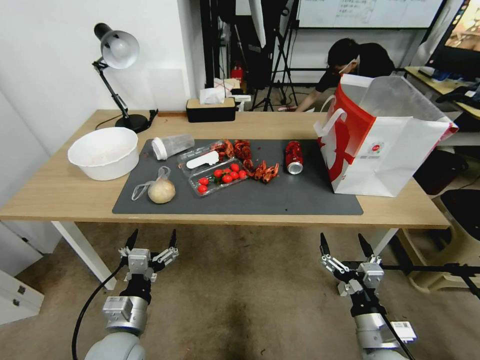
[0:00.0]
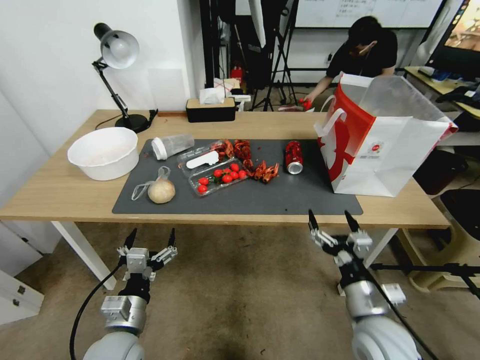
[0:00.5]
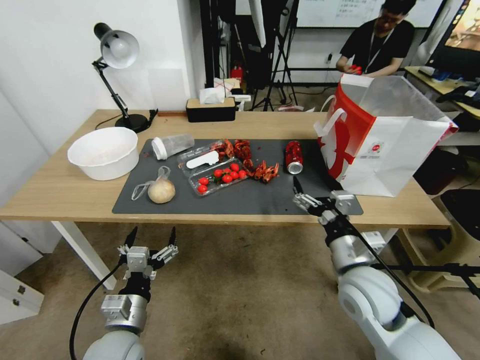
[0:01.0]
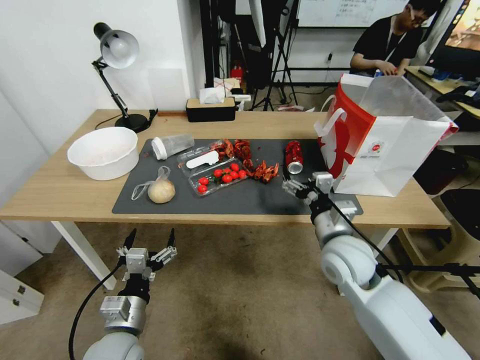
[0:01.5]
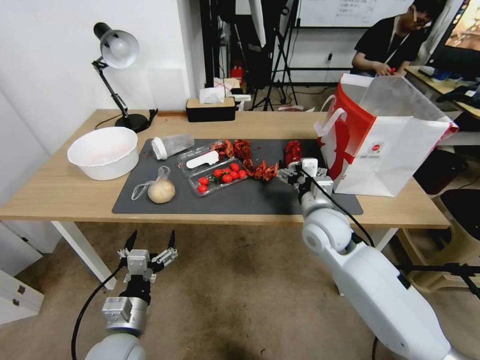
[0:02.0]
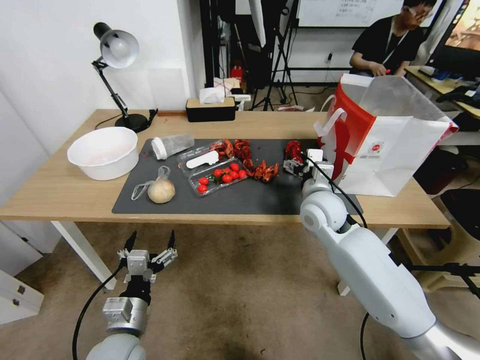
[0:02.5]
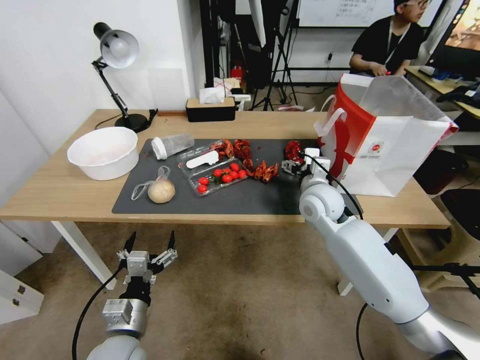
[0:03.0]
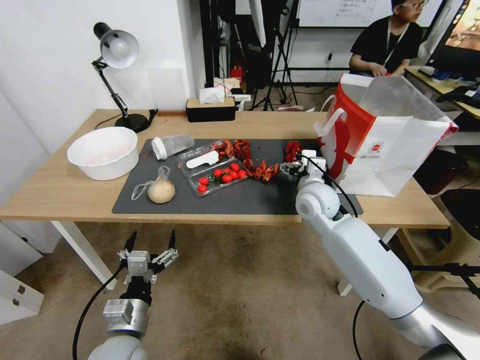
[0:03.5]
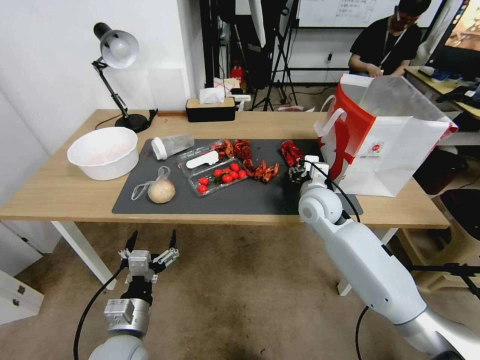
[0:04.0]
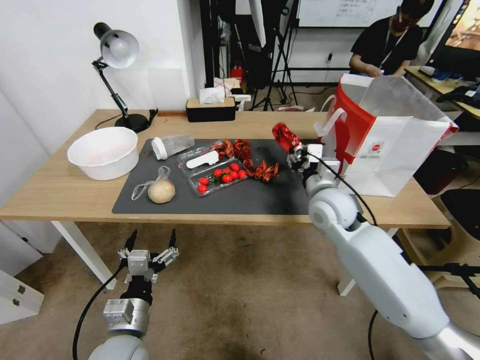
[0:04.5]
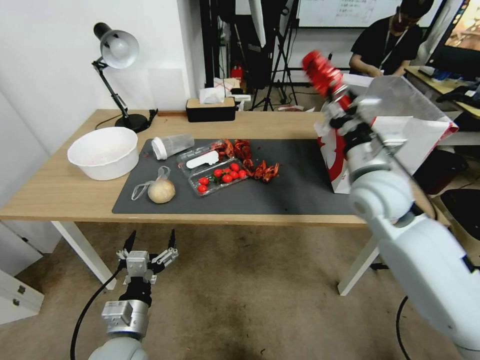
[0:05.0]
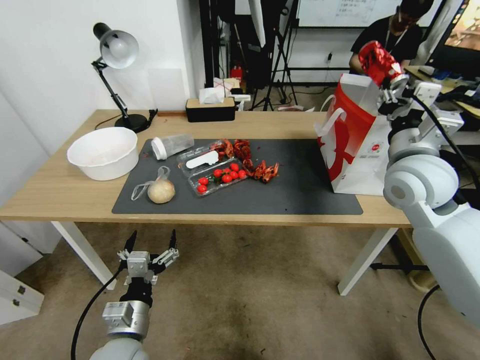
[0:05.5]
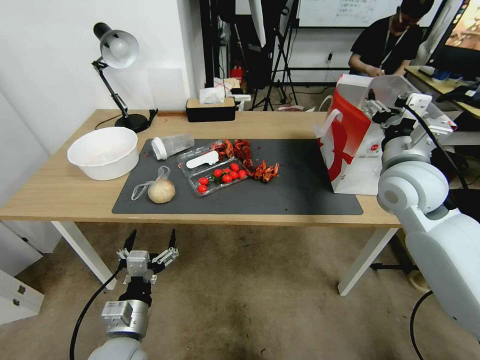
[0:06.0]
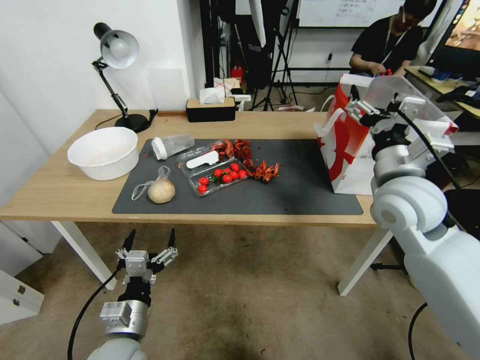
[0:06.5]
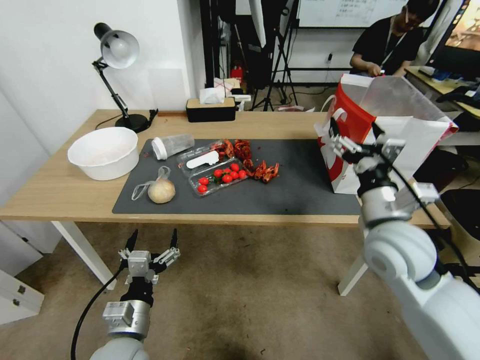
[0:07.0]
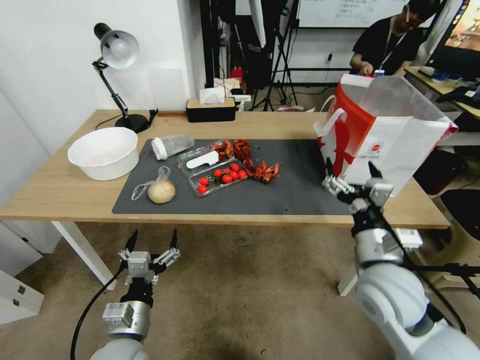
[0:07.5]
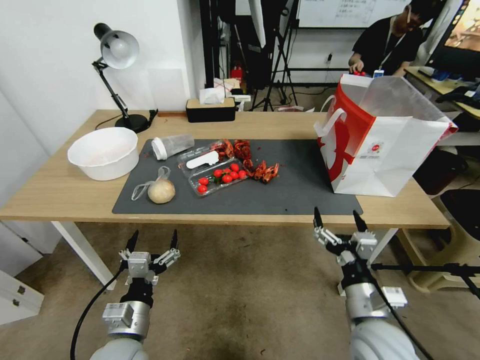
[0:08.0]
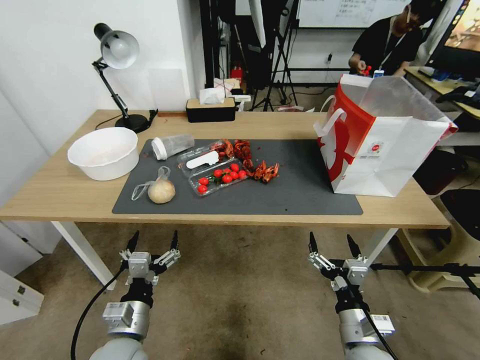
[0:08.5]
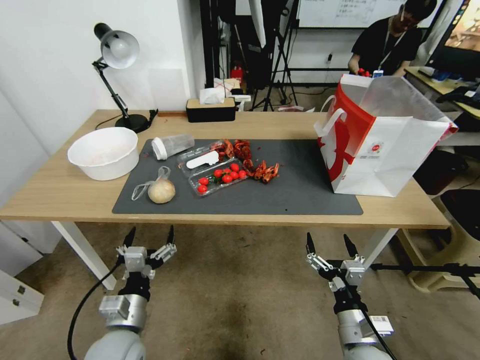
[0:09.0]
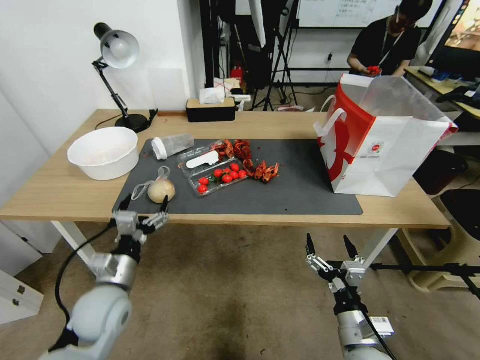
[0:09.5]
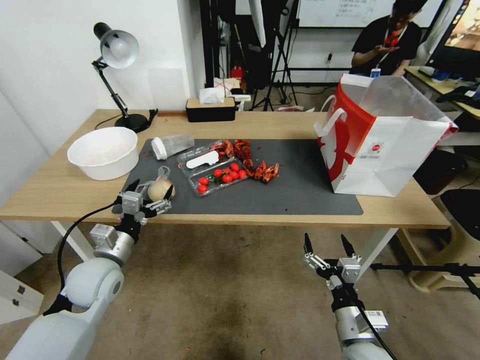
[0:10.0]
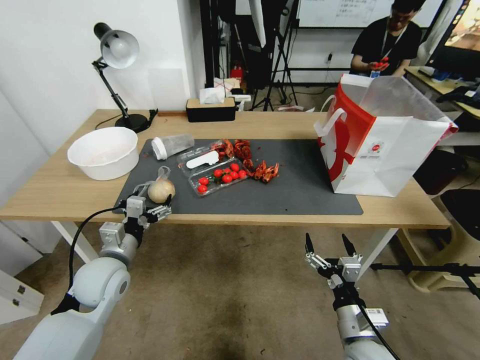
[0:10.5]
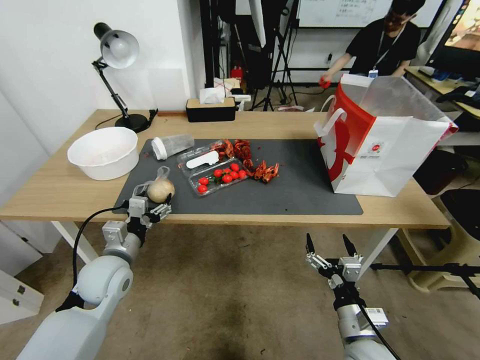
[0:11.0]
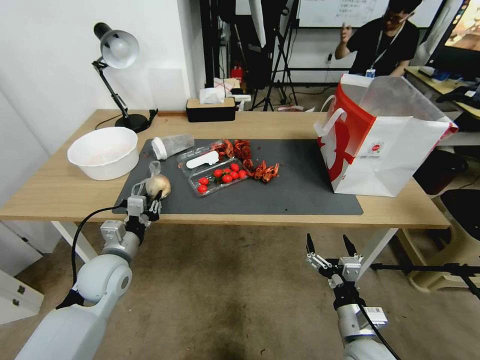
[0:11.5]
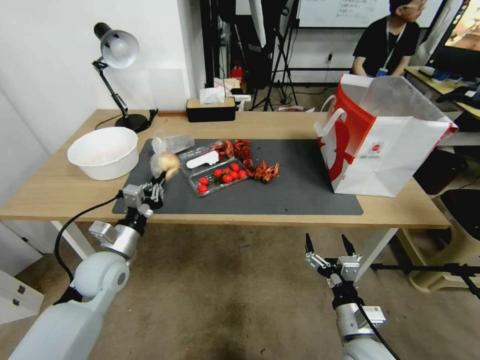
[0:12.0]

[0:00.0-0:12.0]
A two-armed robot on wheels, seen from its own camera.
0.0 to 2.0 s: The right gripper goes some 25 cm forward and upward.
2.0 to 4.0 s: The right gripper travels forward by about 5 cm, and closes its fingers.
4.0 to 6.0 s: The right gripper heads upward, to the right and backward, covering approximately 20 cm, and opens its fingers.
6.0 to 8.0 s: The right gripper heads backward and downward, covering some 30 cm.
8.0 to 10.0 s: The right gripper travels downward by roughly 5 cm. Meanwhile the left gripper heads forward and to the left, covering roughly 15 cm.
10.0 to 12.0 s: The left gripper closes.

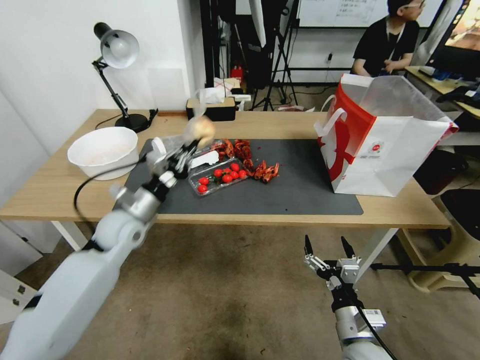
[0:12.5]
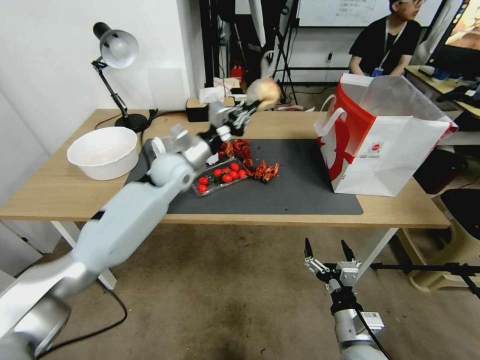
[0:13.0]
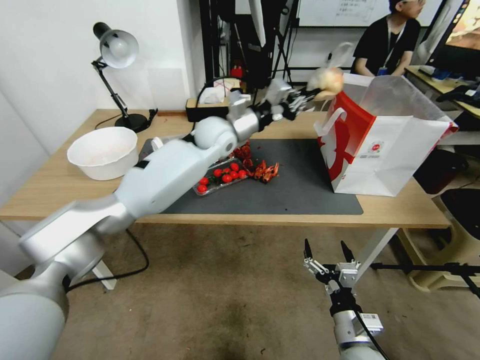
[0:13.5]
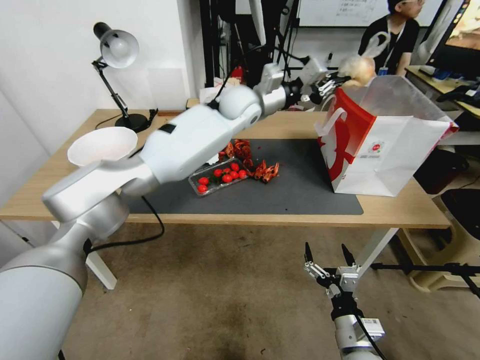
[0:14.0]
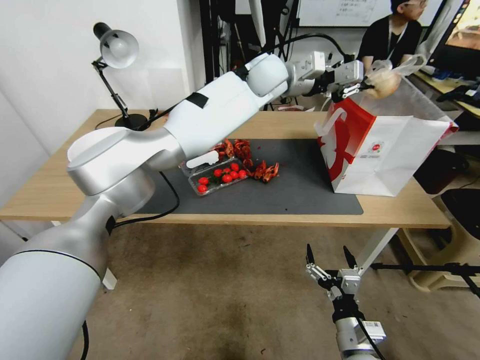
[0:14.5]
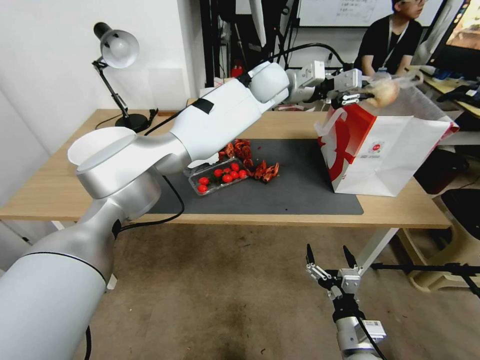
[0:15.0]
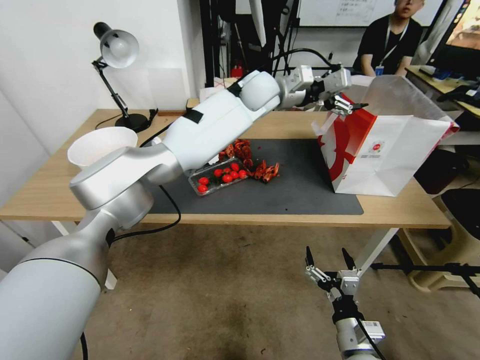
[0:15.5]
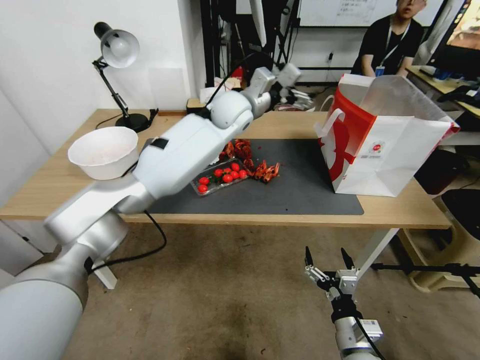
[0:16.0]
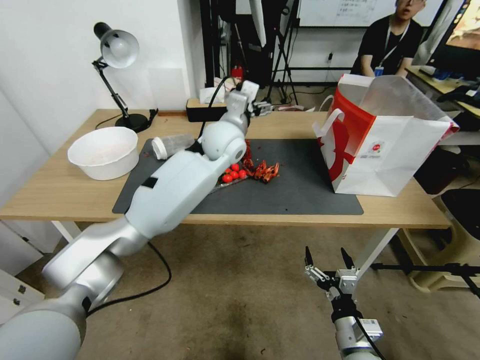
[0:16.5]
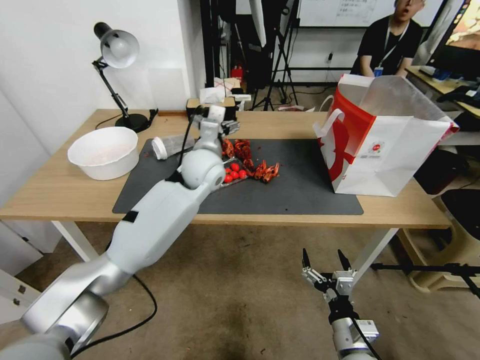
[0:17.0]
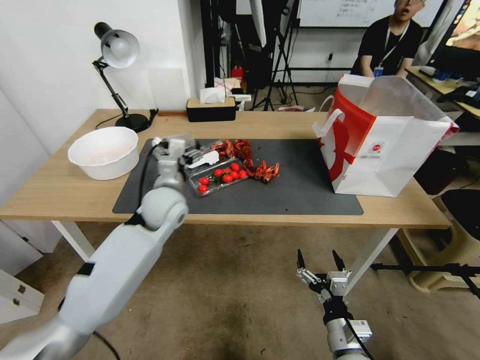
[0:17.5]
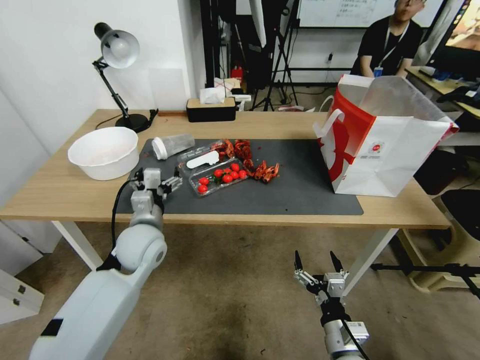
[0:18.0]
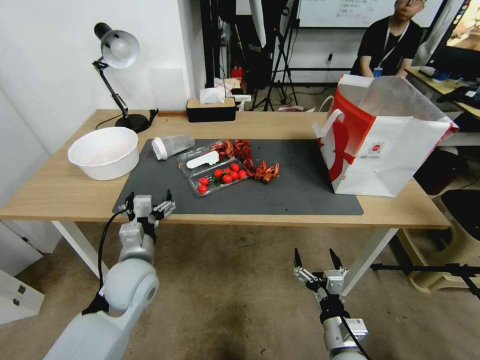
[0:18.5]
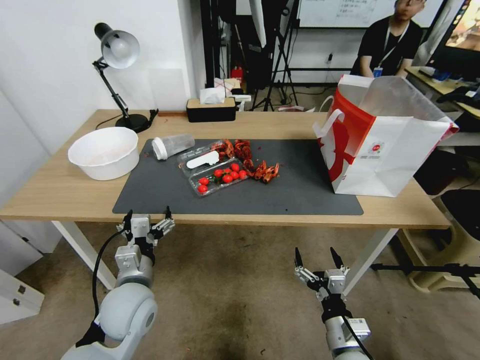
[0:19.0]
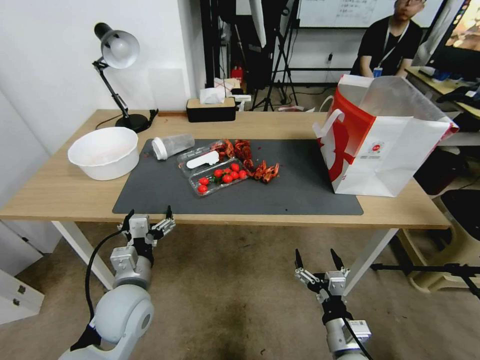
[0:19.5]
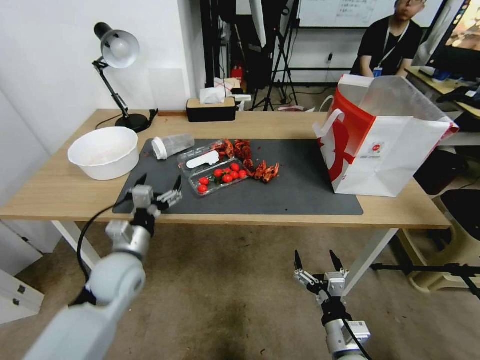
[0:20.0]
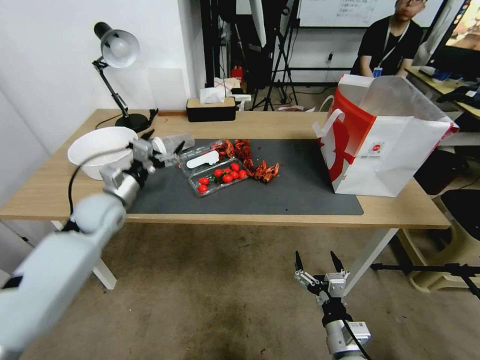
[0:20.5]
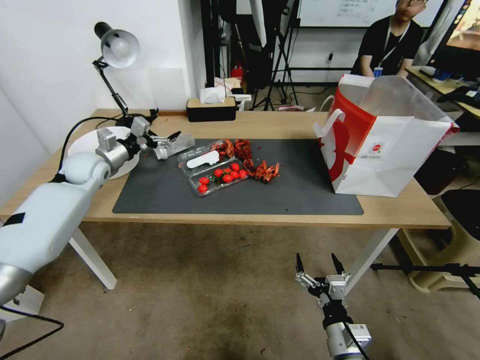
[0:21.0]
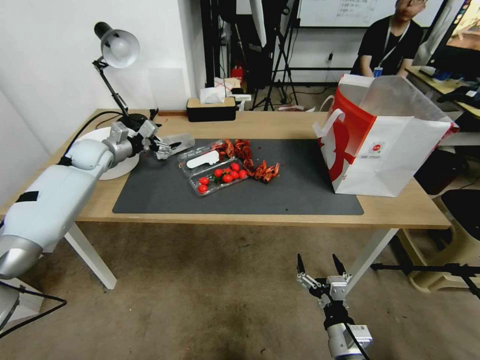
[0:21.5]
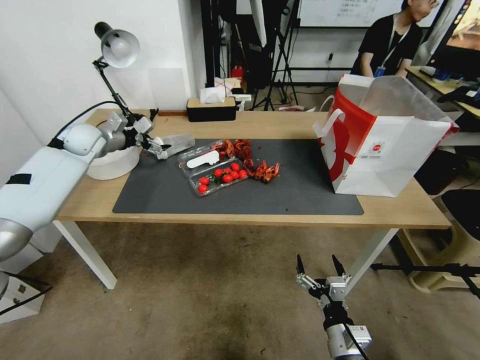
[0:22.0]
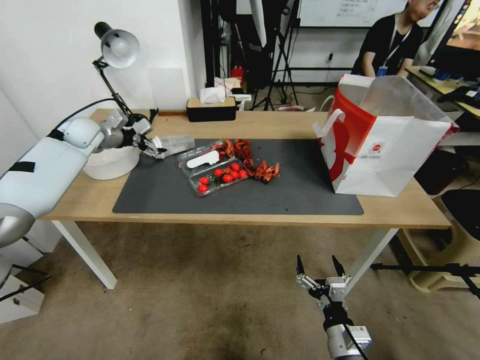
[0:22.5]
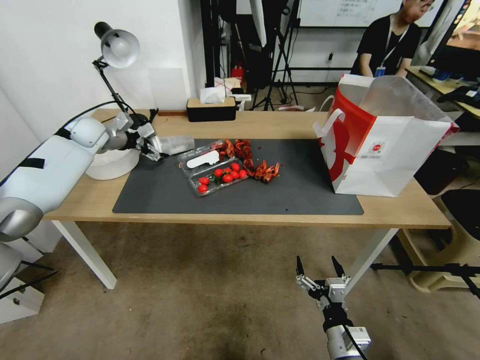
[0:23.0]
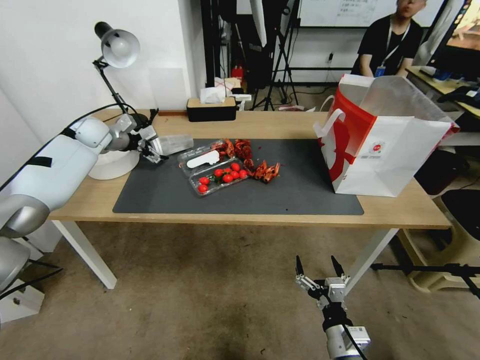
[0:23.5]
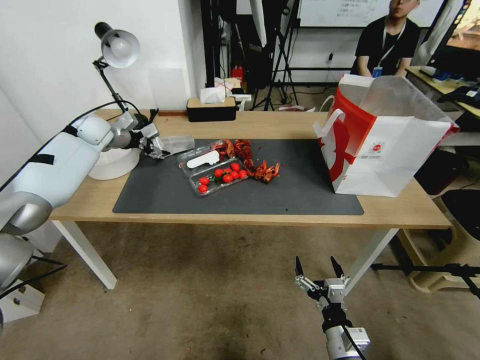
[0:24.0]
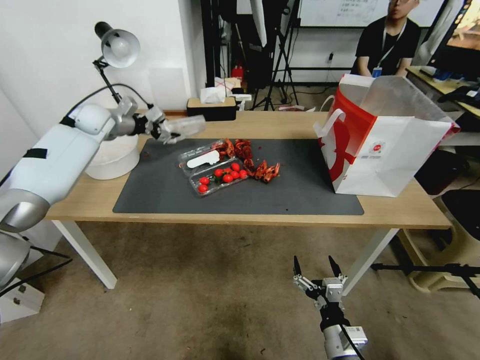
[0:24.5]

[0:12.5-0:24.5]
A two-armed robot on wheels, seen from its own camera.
12.5 to 14.5 s: The left gripper moves to the right, upward and forward, approximately 50 cm.
14.5 to 16.5 s: The left gripper heads downward, to the left and backward, covering about 15 cm, and opens.
16.5 to 18.5 s: The left gripper travels backward, to the left and downward by about 35 cm.
18.5 to 20.5 s: The left gripper moves forward and to the left, roughly 20 cm.
20.5 to 22.5 s: The left gripper is displaced forward, upward and to the left by roughly 20 cm.
22.5 to 24.5 s: The left gripper closes.

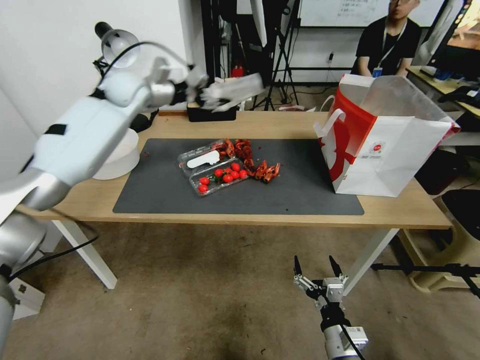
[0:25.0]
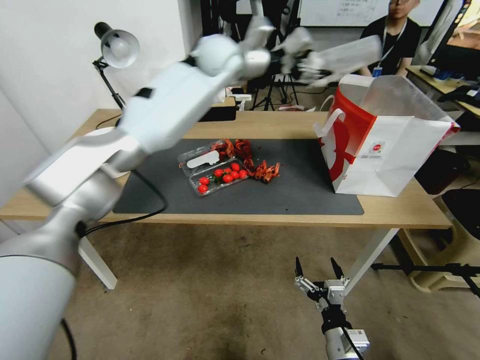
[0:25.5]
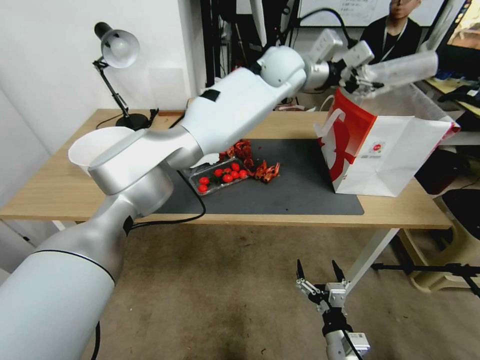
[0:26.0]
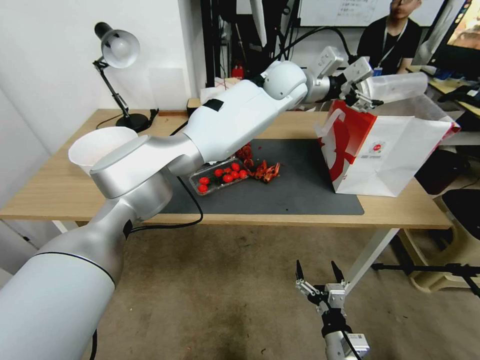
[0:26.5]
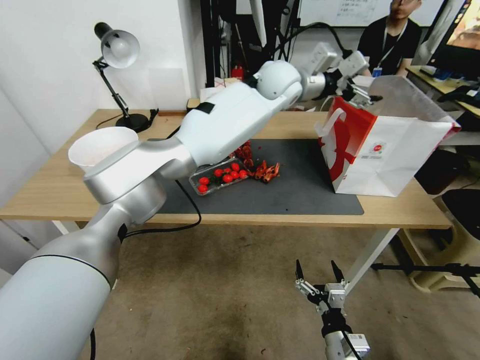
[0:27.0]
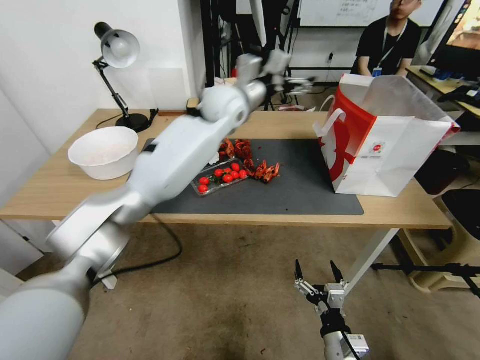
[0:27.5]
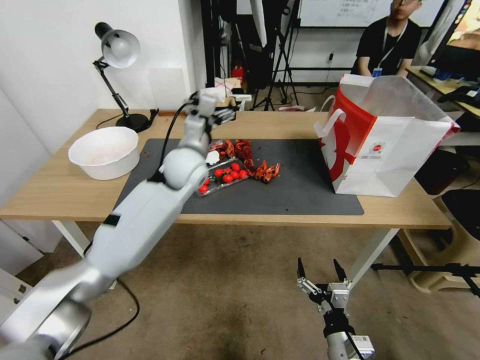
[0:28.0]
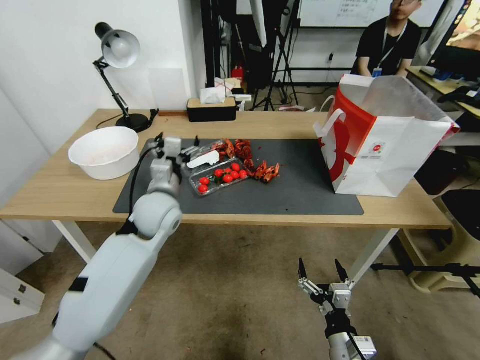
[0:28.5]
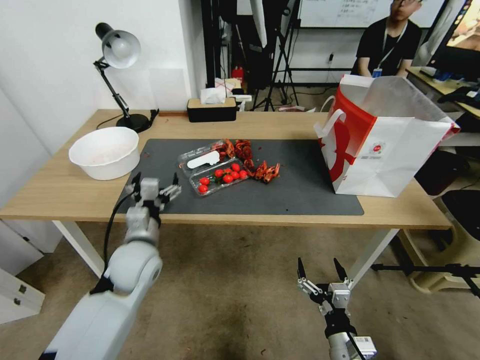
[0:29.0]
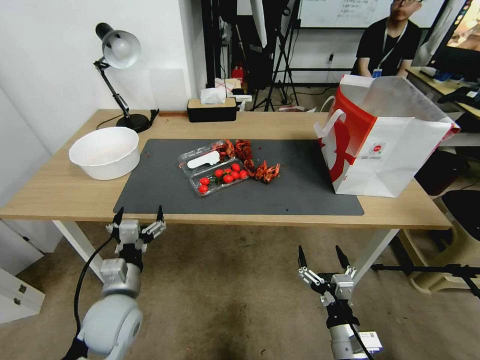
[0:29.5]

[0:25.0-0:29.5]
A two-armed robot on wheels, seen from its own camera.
25.0 to 27.0 s: The left gripper goes roughly 35 cm to the right, and opens its fingers.
27.0 to 29.5 s: The left gripper heads backward, to the left and downward, covering about 60 cm.
